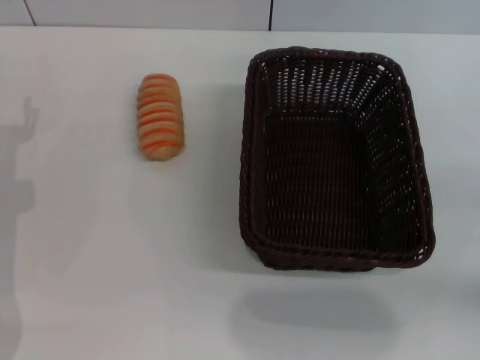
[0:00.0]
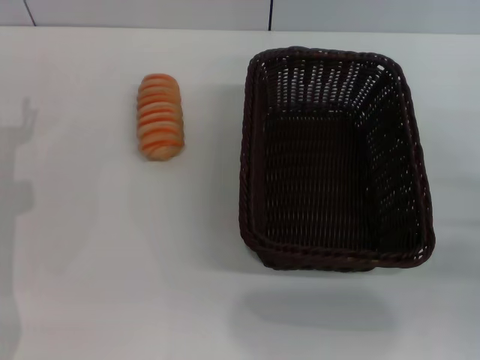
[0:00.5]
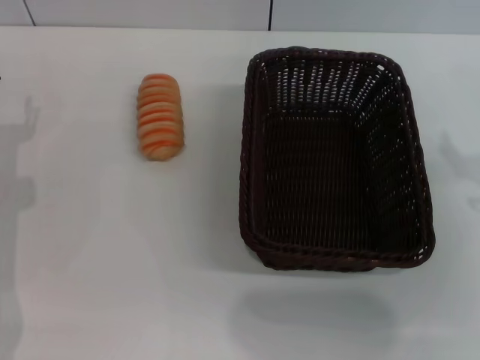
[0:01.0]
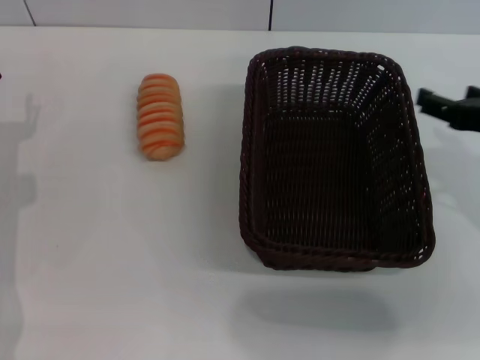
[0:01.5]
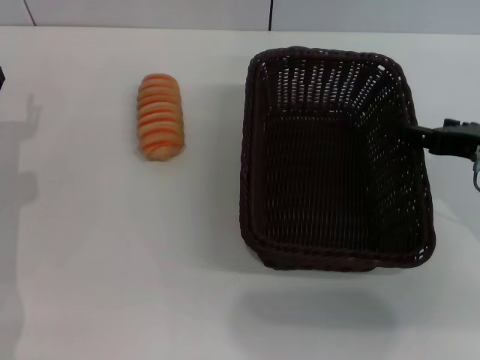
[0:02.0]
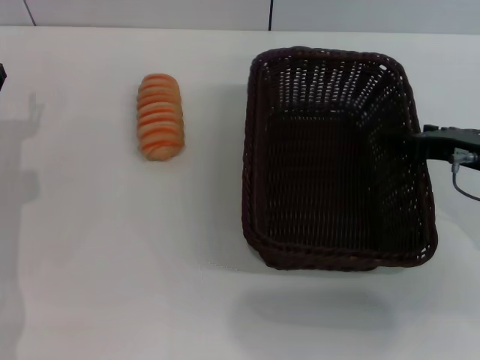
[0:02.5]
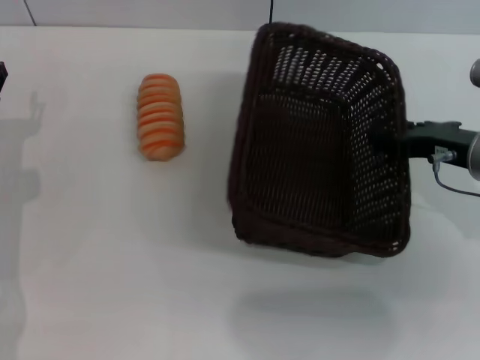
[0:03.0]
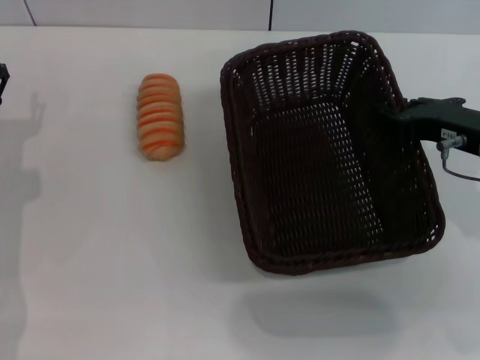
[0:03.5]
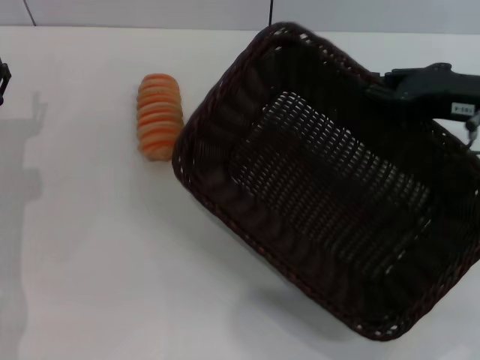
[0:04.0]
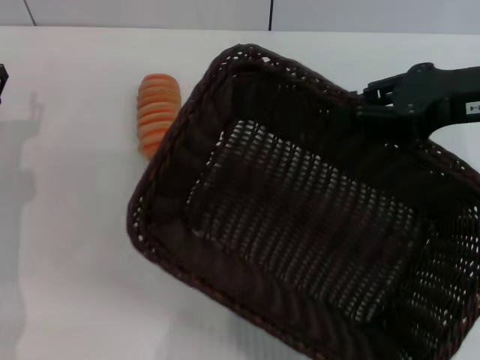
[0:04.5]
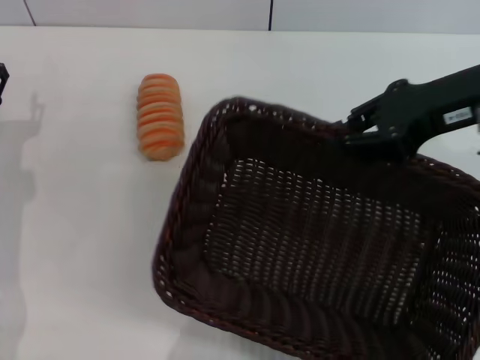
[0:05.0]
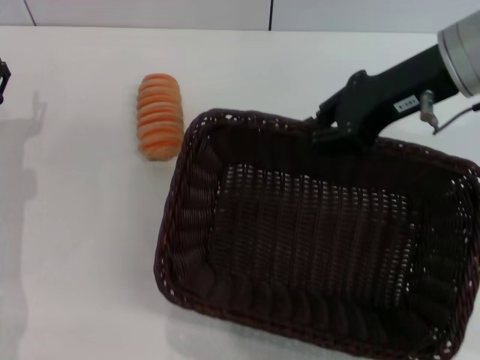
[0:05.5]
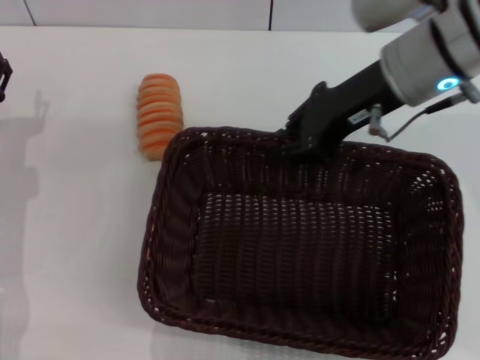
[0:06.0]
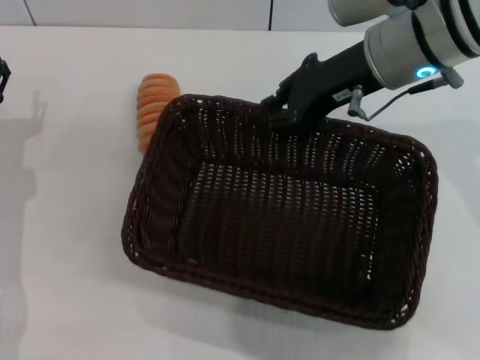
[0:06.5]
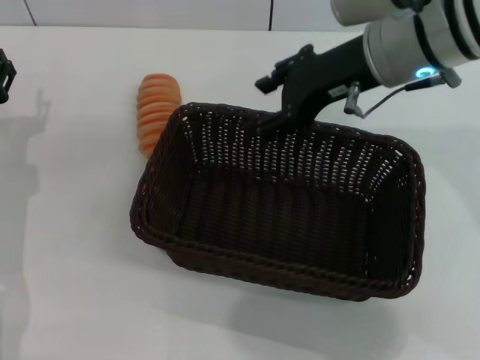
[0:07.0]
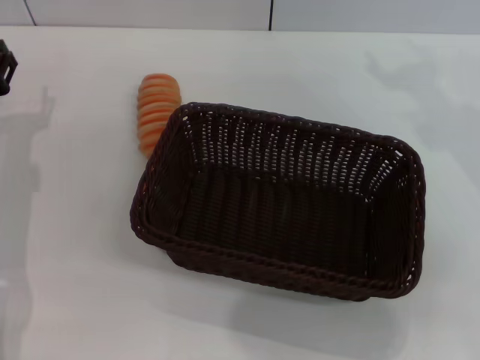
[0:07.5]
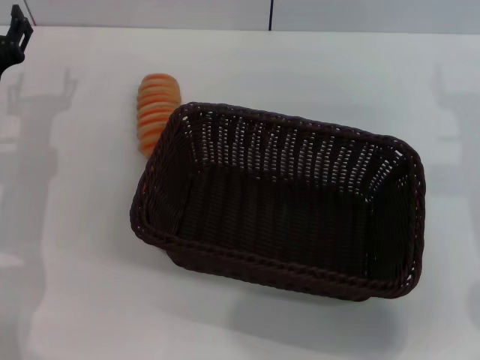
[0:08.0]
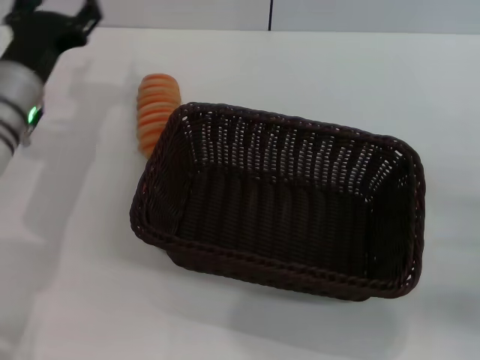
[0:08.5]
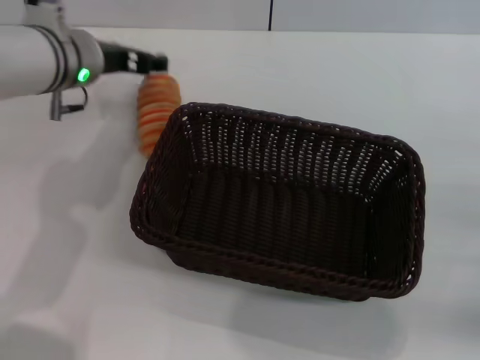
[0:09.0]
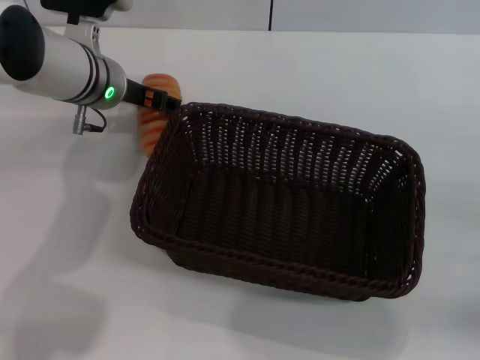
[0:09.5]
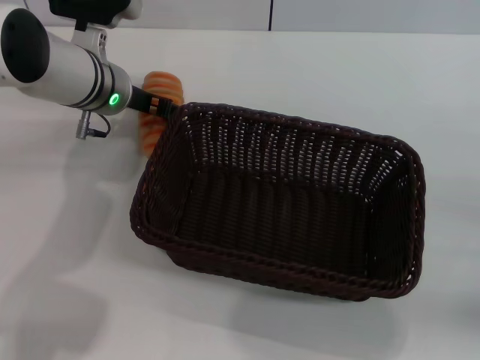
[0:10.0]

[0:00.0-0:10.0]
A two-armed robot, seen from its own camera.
Step, 0:00.0 to 0:03.5: Pick up the dark basket with the right gripper.
Step, 0:04.0 to 0:06.5: Place the dark basket in the center of view with the right gripper.
0:00.0 to 0:02.0: The right gripper travels to the left, forward and upward by some 15 cm.
0:02.0 to 0:04.0: The right gripper is displaced upward by approximately 5 cm, and closes.
0:04.0 to 0:06.0: The right gripper moves to the left and forward, some 10 cm.
0:06.0 to 0:08.0: The right gripper is displaced to the right and backward by some 15 cm, and opens up.
0:08.0 to 0:10.0: The right gripper is displaced backward, downward and to the right by approximately 20 cm. Meanwhile the left gripper heads to the right and forward, covering roughly 15 cm.

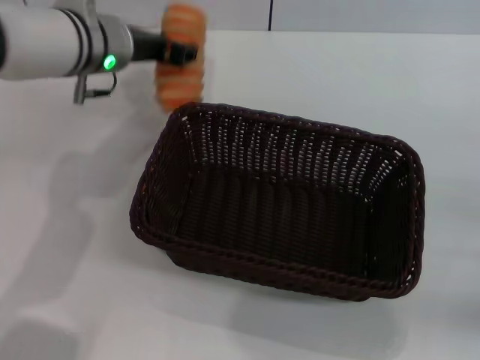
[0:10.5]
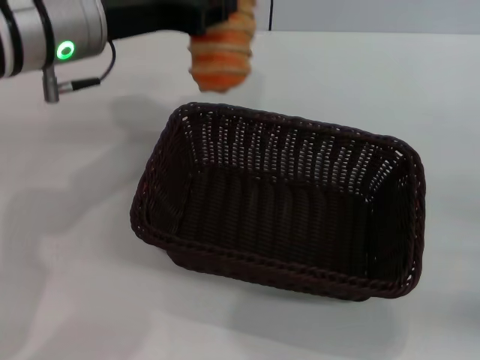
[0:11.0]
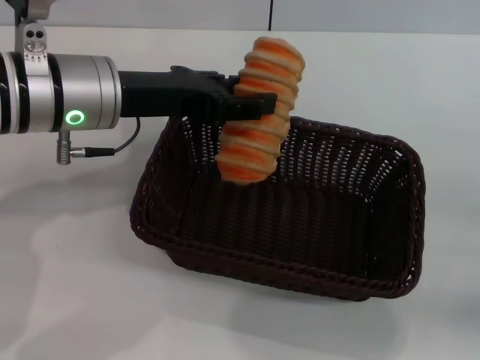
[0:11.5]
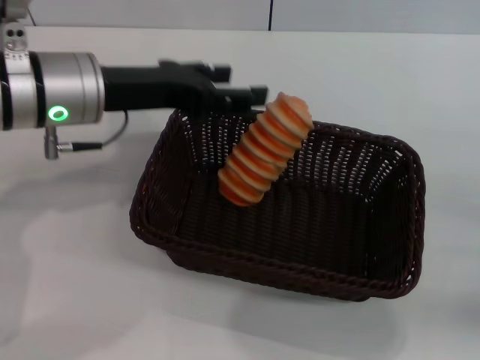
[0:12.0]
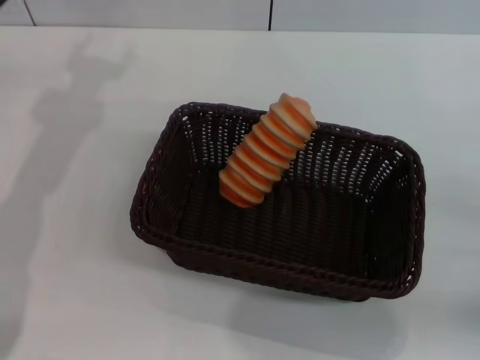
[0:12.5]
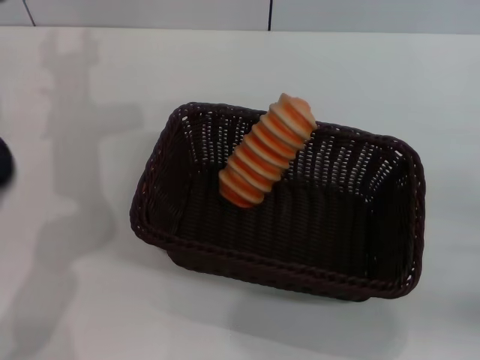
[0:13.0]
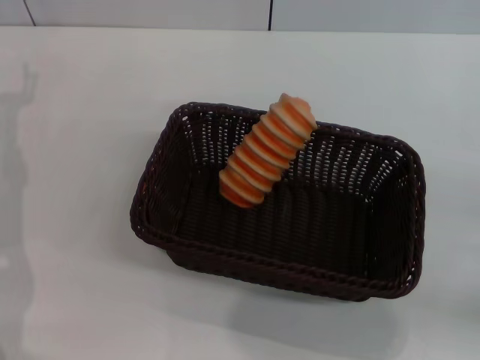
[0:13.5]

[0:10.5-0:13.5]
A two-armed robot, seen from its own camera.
Step, 0:10.5 to 0:12.0: Place the long bread into the dark basket with the left gripper.
0:10.5 to 0:12.0: The left gripper travels backward by about 10 cm, and opens.
0:12.0 to 0:13.5: The left gripper moves to the left and downward, approximately 15 cm.
